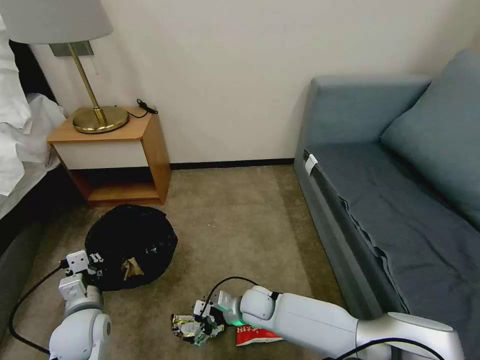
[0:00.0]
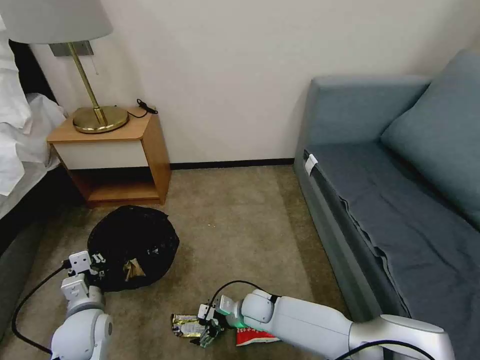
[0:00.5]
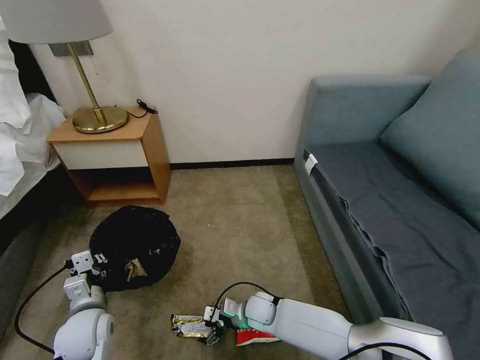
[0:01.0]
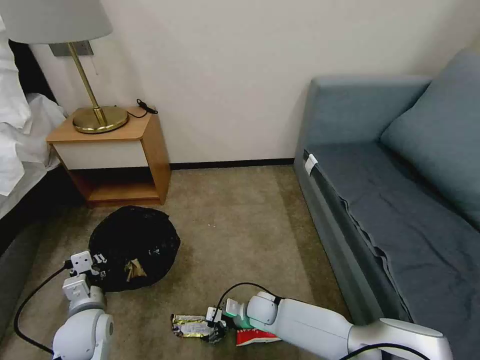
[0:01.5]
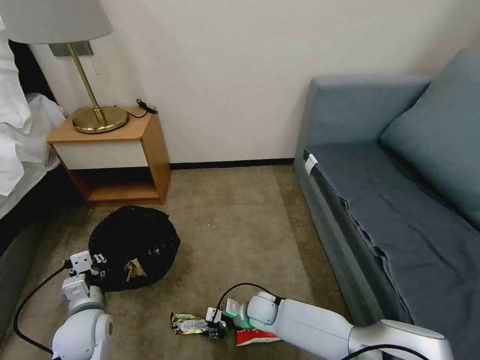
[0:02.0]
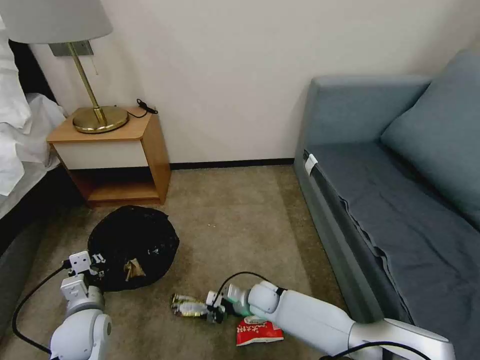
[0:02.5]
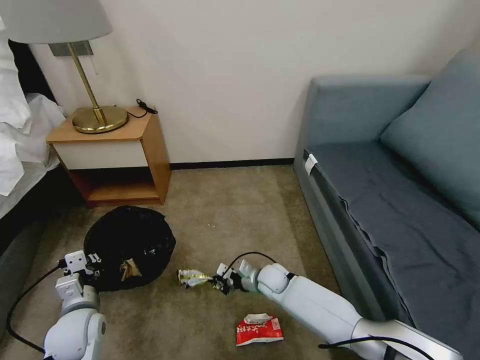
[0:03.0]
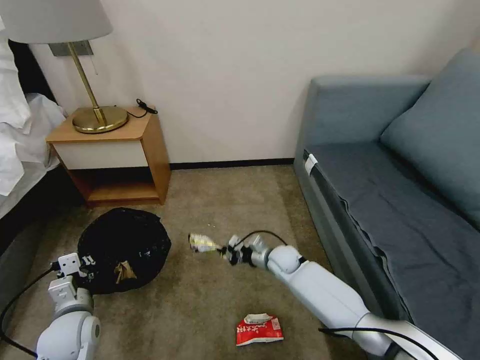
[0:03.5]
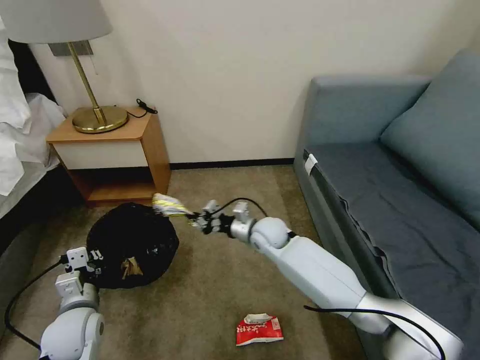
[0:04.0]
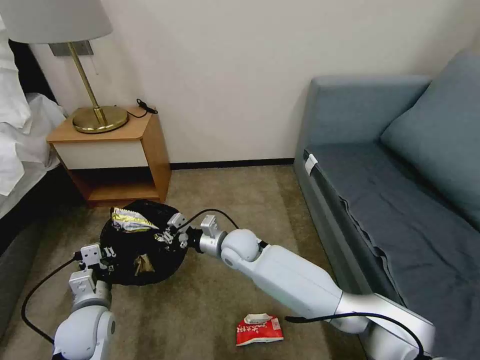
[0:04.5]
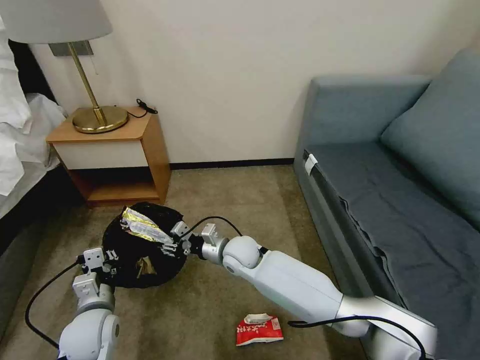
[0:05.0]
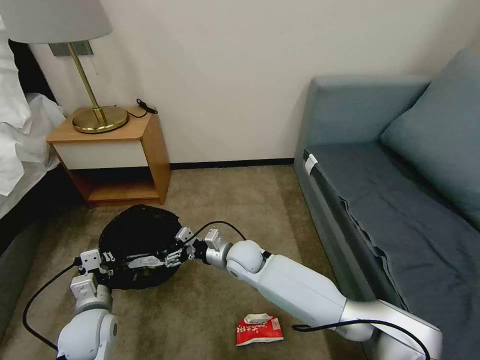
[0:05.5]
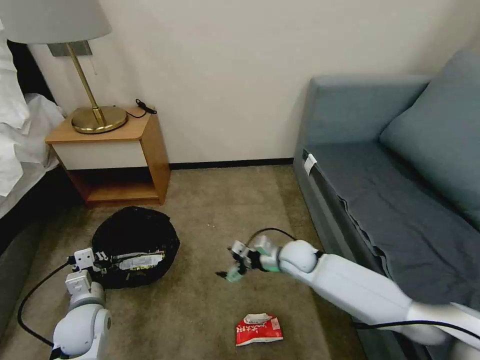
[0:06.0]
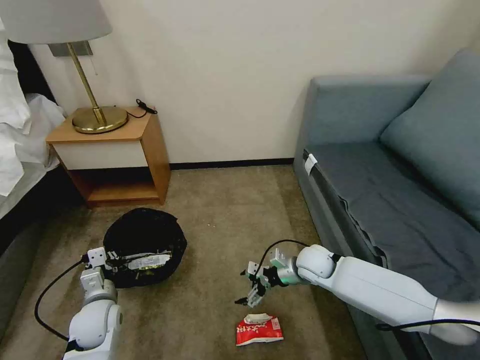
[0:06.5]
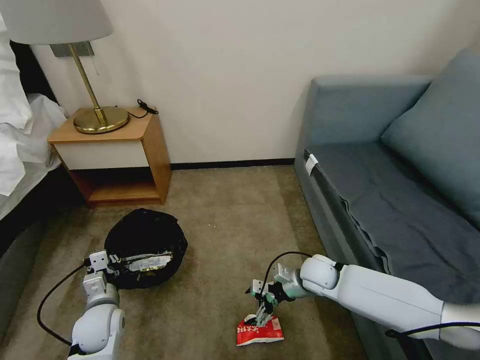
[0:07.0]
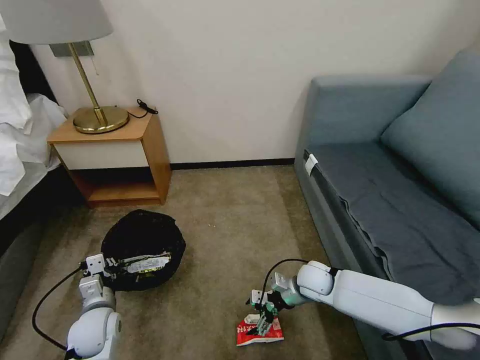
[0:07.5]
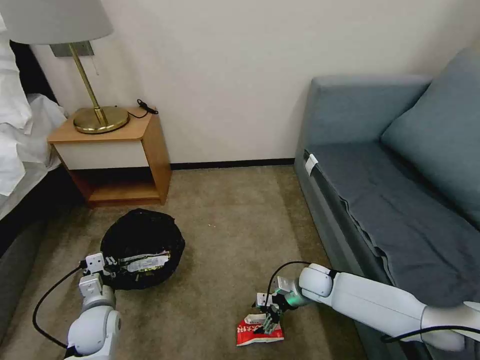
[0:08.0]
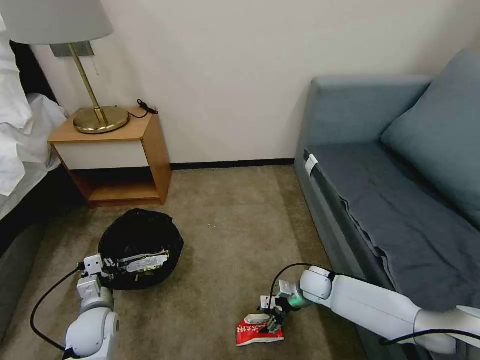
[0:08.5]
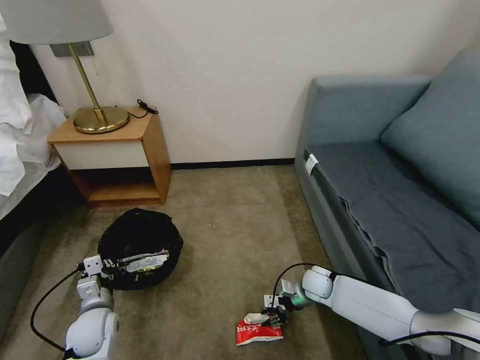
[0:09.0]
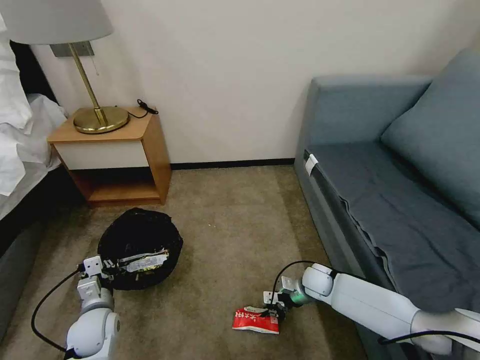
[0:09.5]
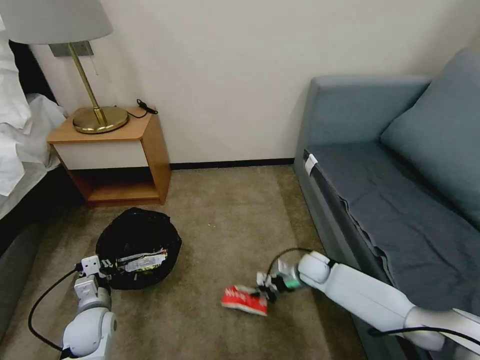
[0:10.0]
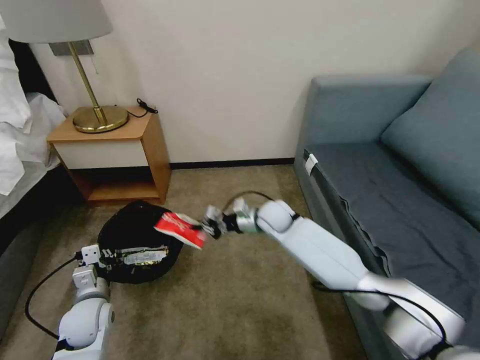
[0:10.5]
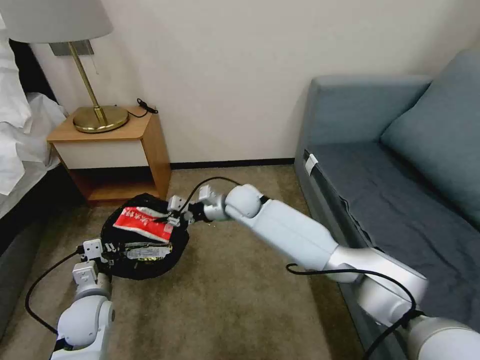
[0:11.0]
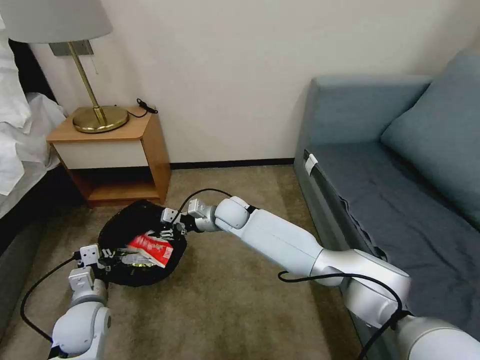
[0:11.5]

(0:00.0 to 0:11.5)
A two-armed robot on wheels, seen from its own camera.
Task of the whole recording: Pick up the trash bin, then pick up the garbage on the floor and place it into the trash bin.
0:00.0 - 0:02.0: The right gripper travels downward by about 5 cm, and closes.
0:02.0 - 0:04.0: The right gripper is displaced upward and forward by approximately 25 cm, and closes its fingers.
0:04.0 - 0:06.0: The right gripper is displaced to the right by approximately 5 cm, and opens its fingers.
0:06.0 - 0:07.5: The right gripper travels to the right by some 5 cm.
0:07.5 - 0:09.5: The right gripper goes about 5 cm downward, and closes its fingers.
0:09.5 - 0:11.5: The left gripper shifts roughly 5 cm upward, while the right gripper goes some 35 cm to the left, upward and forward, and opens its fingers.

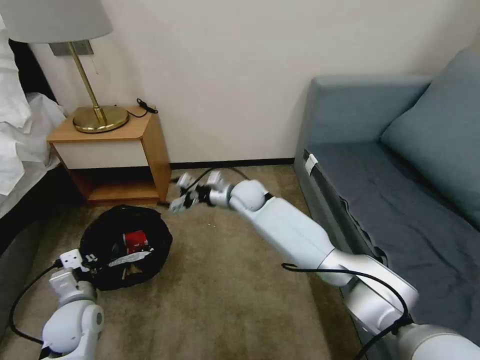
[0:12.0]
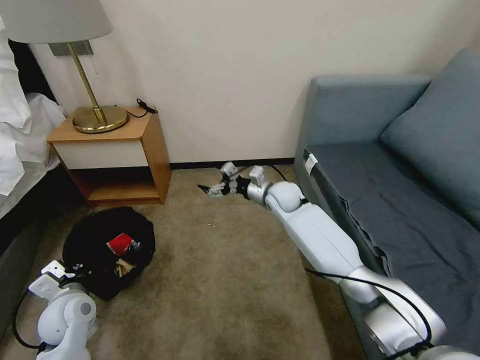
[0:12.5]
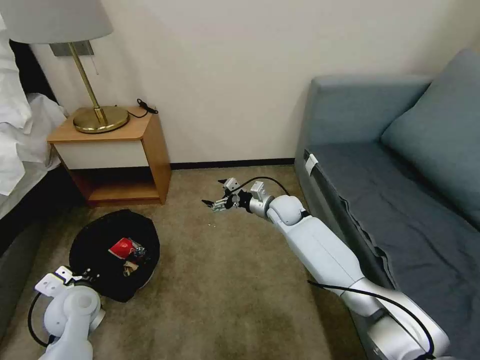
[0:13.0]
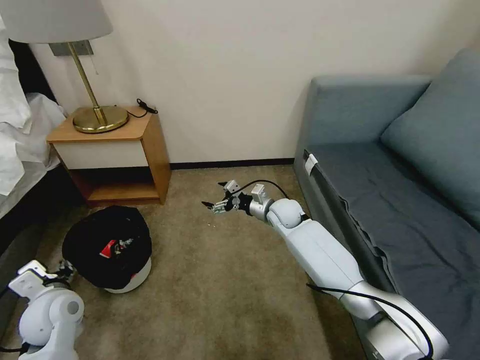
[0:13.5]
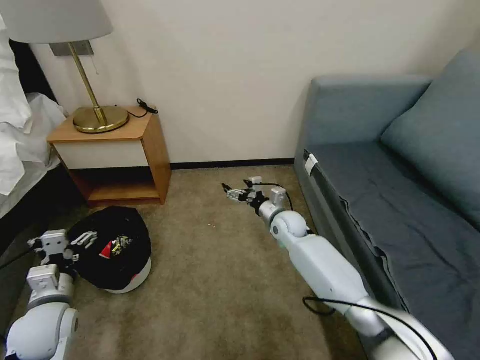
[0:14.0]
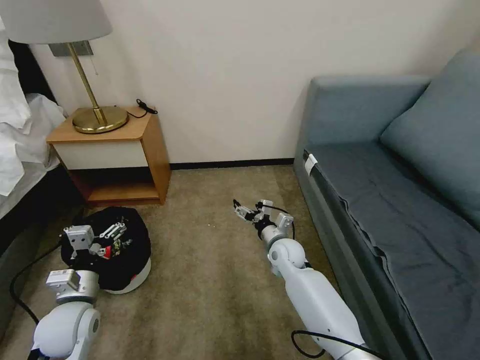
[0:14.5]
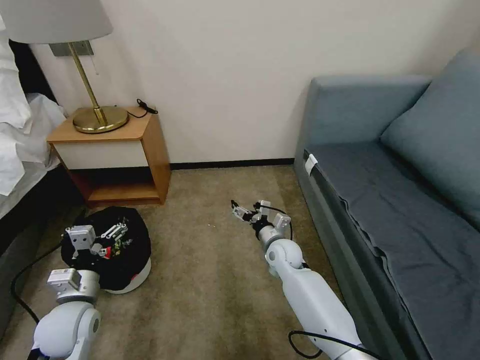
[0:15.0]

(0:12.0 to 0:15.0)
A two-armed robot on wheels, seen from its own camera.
Task of the whole recording: Pick up the trash bin, then pick up the garbage on the floor and place it into the trash bin.
0:12.0 - 0:13.5: The left gripper ends up some 5 cm from where it was, and opens; the right gripper moves to the right and downward, about 15 cm.
0:13.5 - 0:15.0: The right gripper shifts about 10 cm backward and downward, while the left gripper opens its fingers.

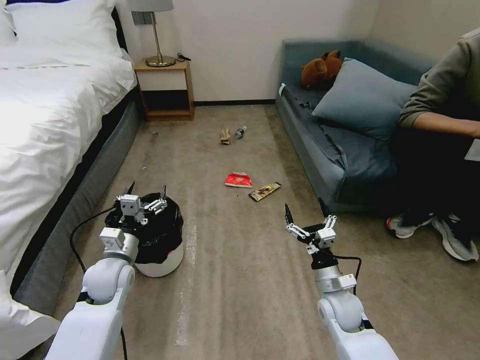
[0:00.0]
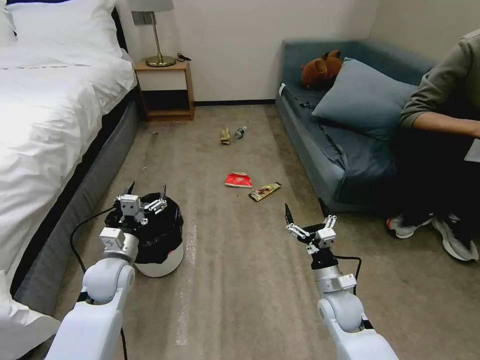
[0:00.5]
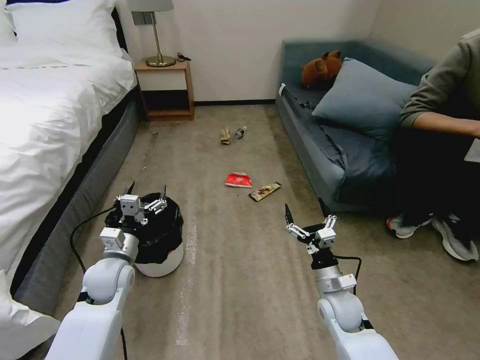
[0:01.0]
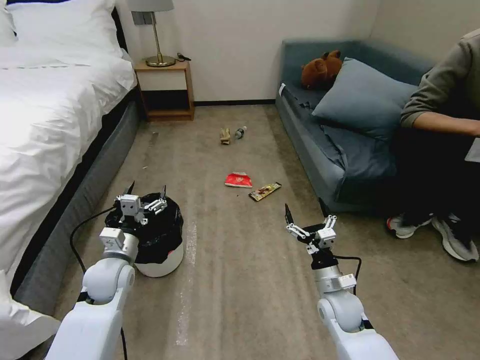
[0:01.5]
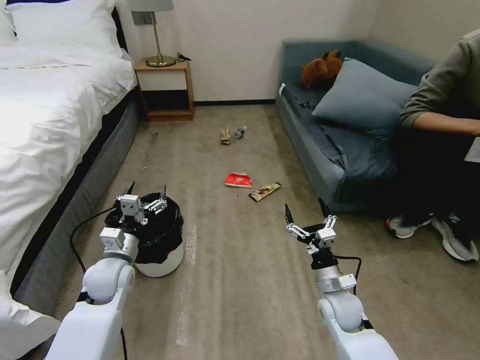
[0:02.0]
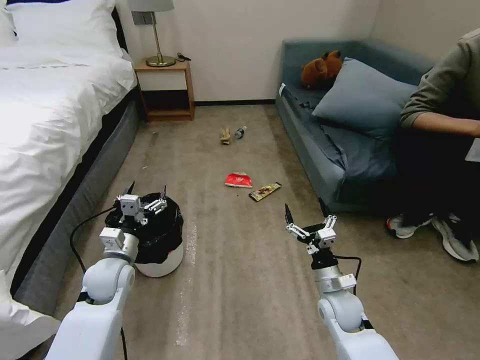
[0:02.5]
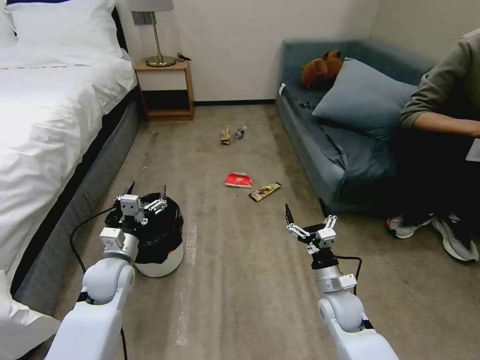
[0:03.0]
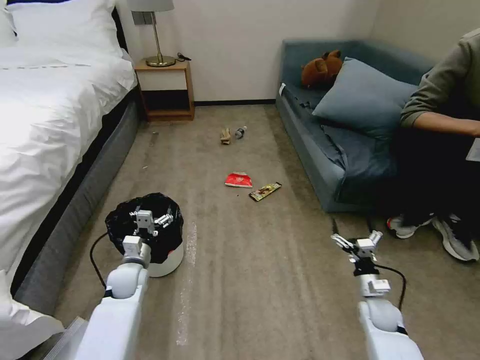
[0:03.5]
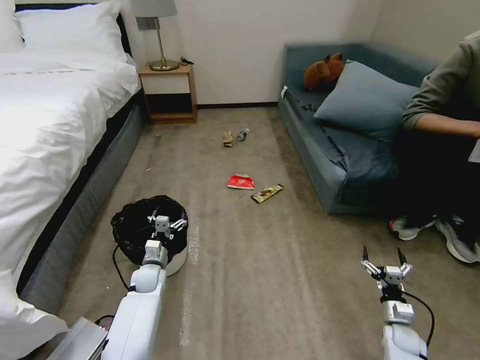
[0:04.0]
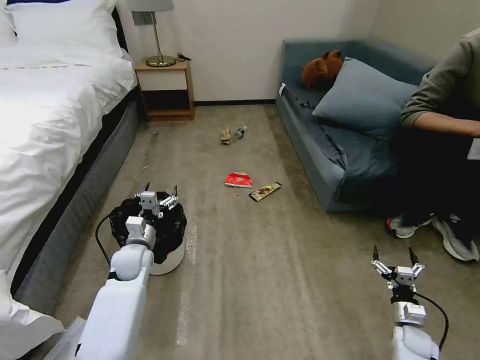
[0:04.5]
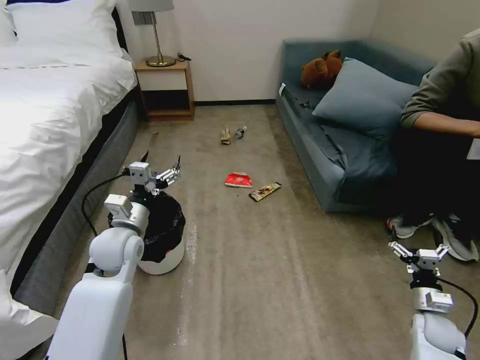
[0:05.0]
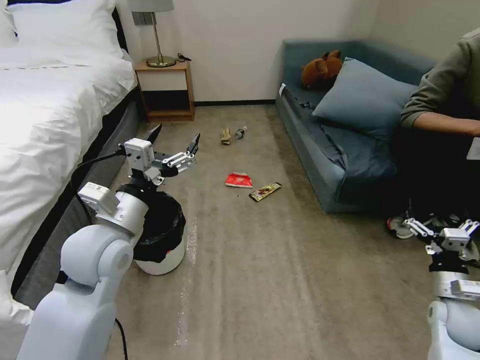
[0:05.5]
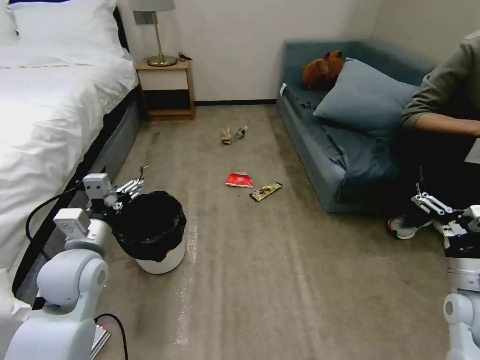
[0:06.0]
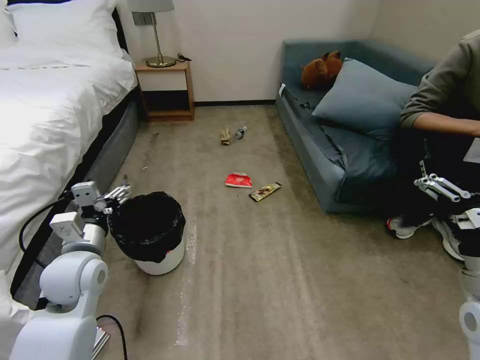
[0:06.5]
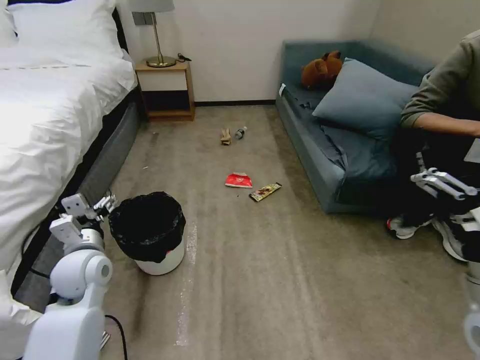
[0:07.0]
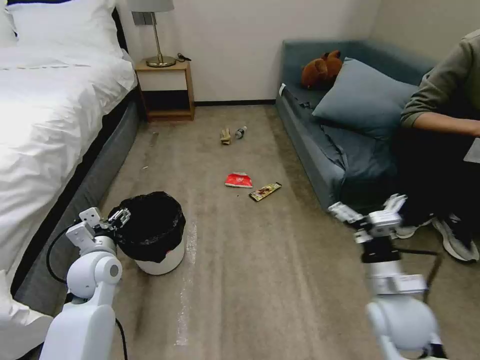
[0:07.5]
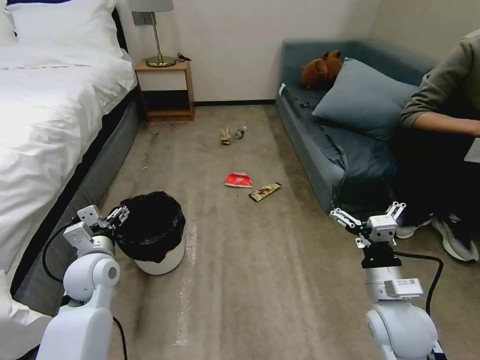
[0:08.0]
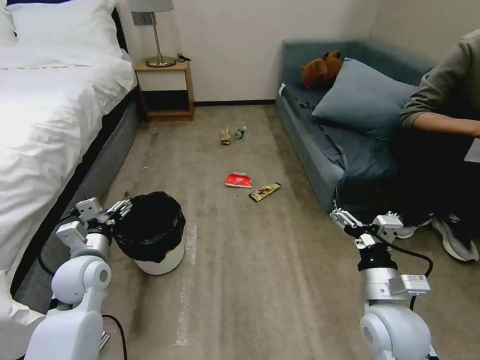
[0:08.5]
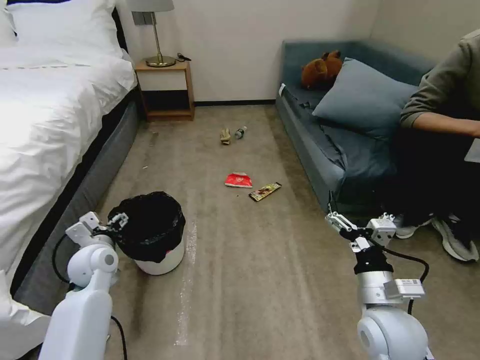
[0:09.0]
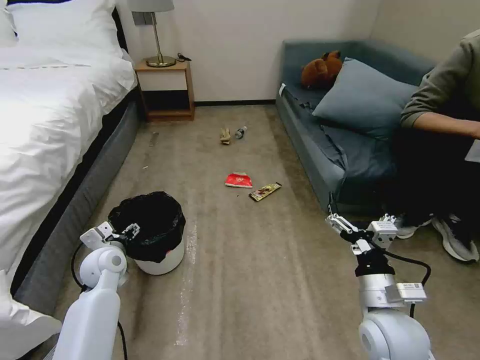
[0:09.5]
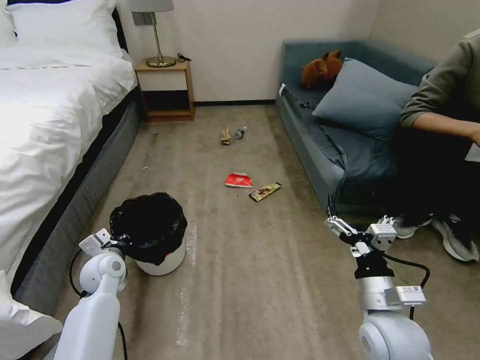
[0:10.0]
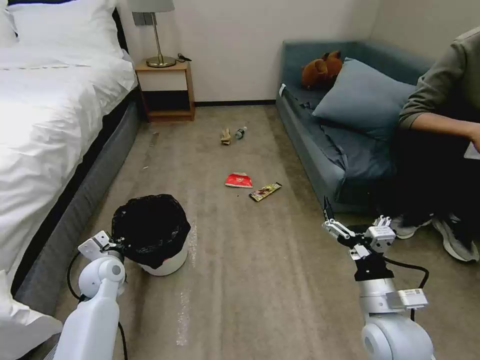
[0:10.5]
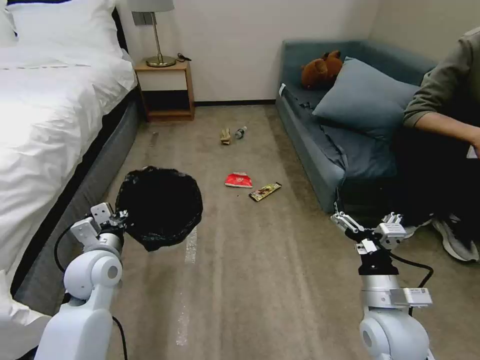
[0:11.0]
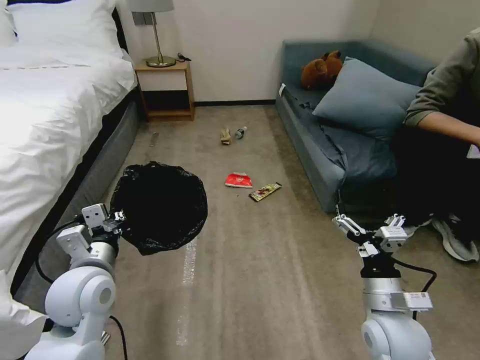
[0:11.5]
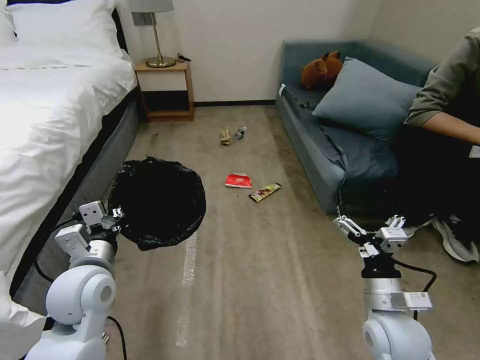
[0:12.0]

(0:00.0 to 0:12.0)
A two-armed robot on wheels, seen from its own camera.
Task of the whole recording: Pick up the trash bin, then pick up the garbage on the floor and place it into the trash bin.
0:02.0 - 0:04.0: The left gripper heads downward, covering approximately 15 cm. The right gripper travels to the right and downward by approximately 25 cm.
0:04.0 - 0:06.0: Both grippers travel together upward, about 30 cm.
0:06.0 - 0:08.0: The left gripper goes roughly 10 cm downward. The right gripper heads to the left, covering some 15 cm.
0:08.0 - 0:10.0: The left gripper is displaced downward by some 5 cm, and closes up.
0:10.0 - 0:12.0: The left gripper goes some 20 cm upward, backward and to the right.
